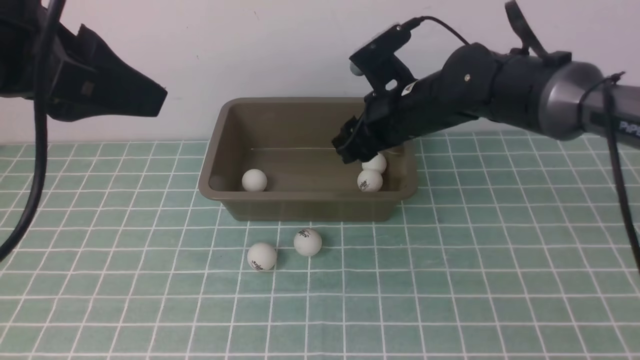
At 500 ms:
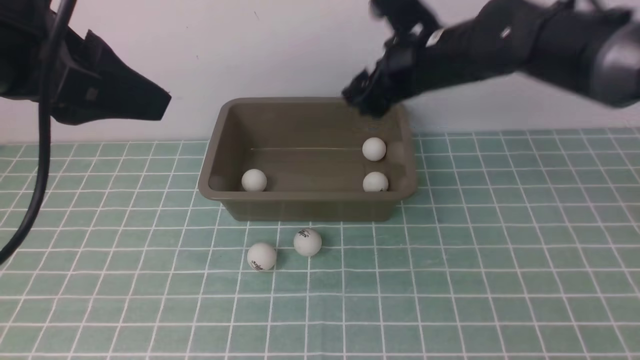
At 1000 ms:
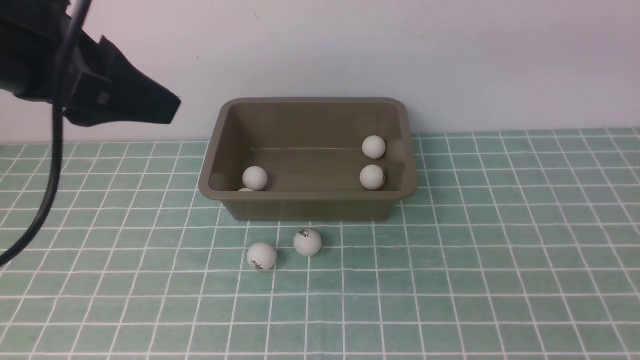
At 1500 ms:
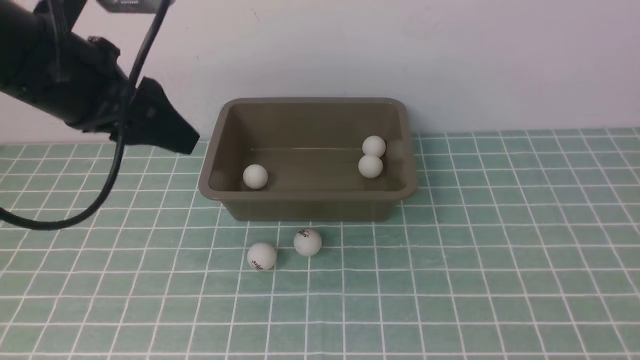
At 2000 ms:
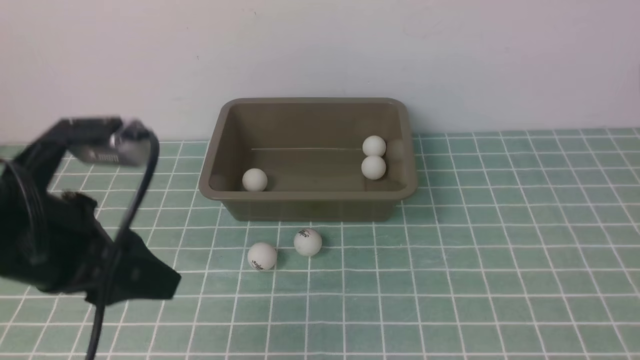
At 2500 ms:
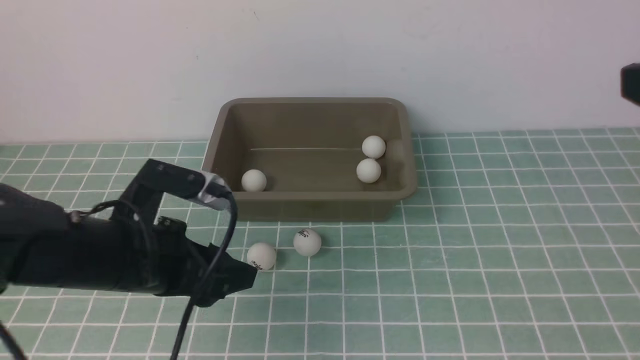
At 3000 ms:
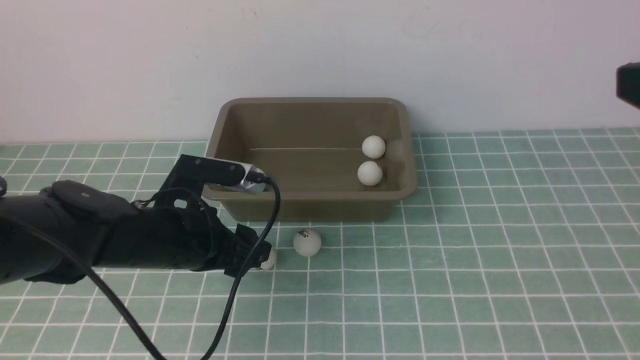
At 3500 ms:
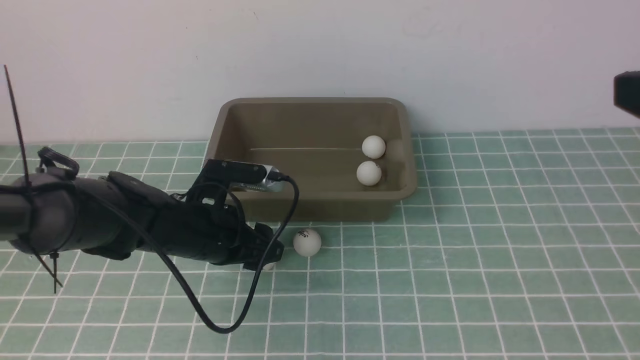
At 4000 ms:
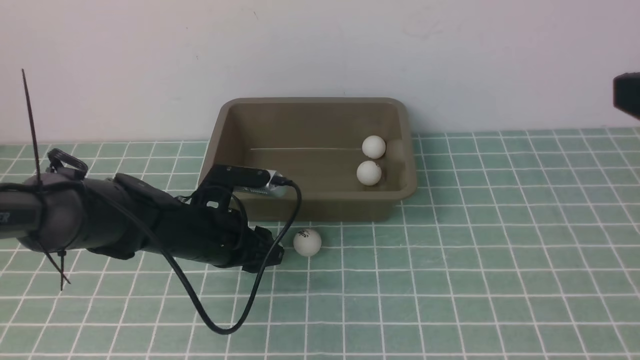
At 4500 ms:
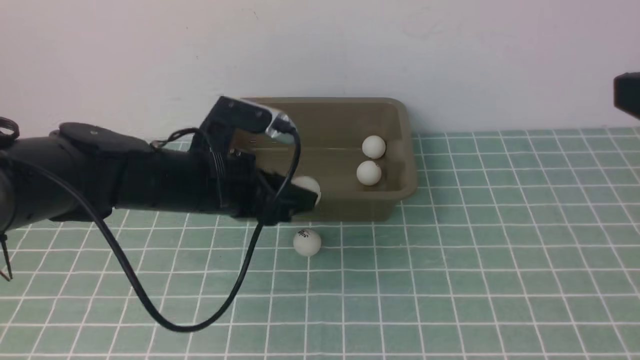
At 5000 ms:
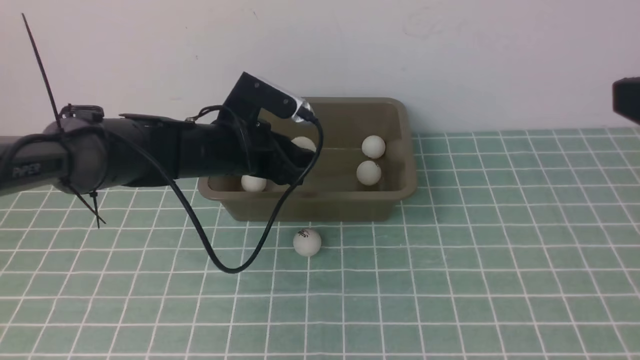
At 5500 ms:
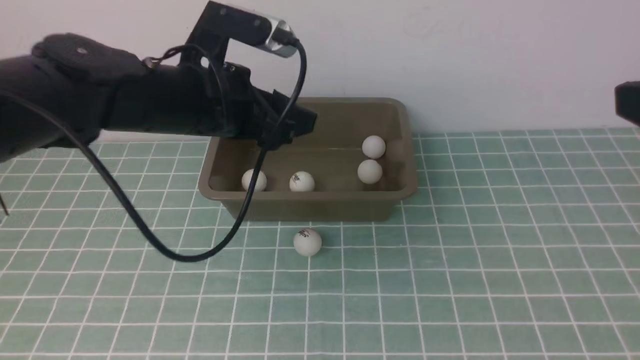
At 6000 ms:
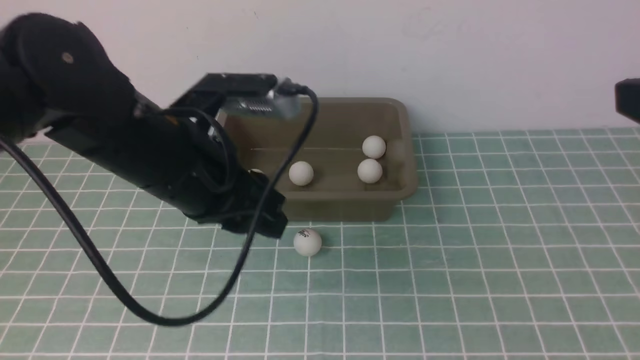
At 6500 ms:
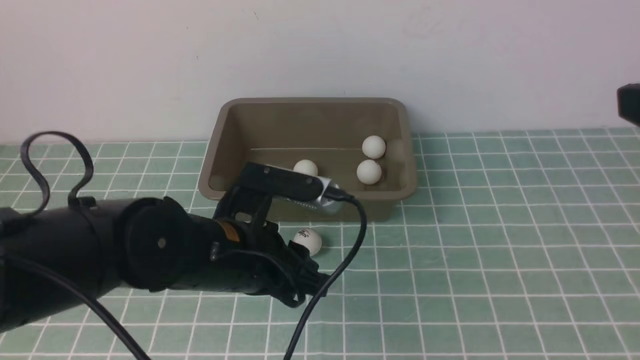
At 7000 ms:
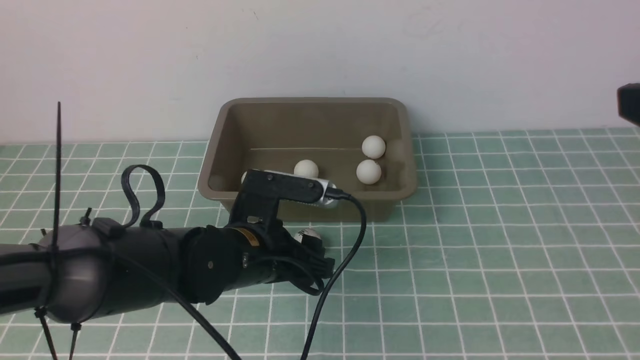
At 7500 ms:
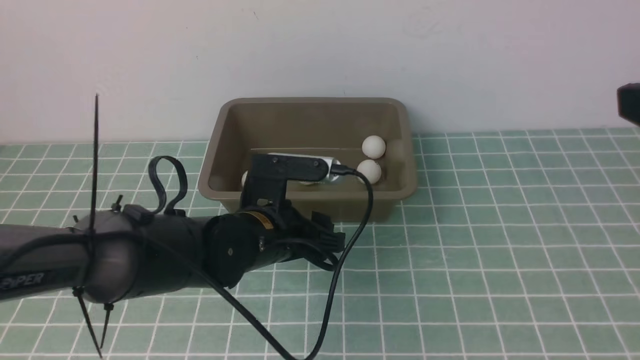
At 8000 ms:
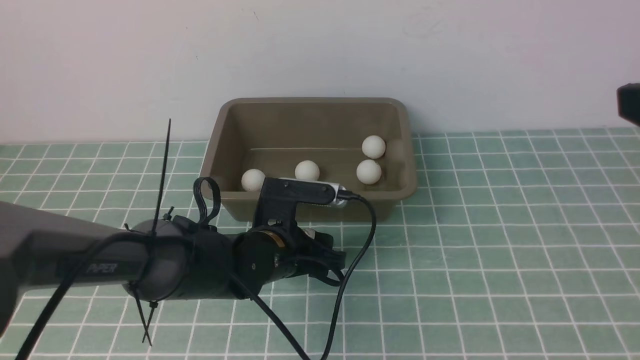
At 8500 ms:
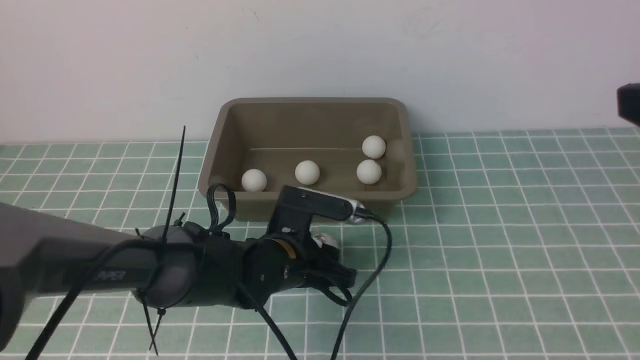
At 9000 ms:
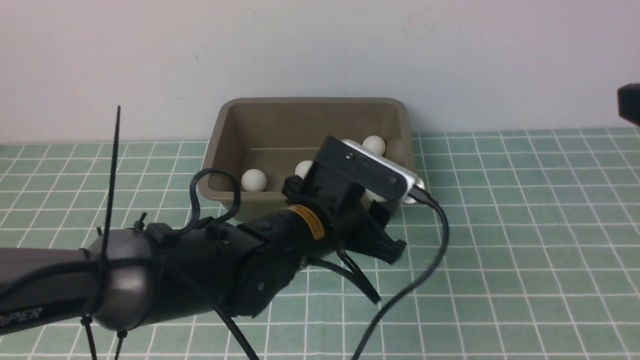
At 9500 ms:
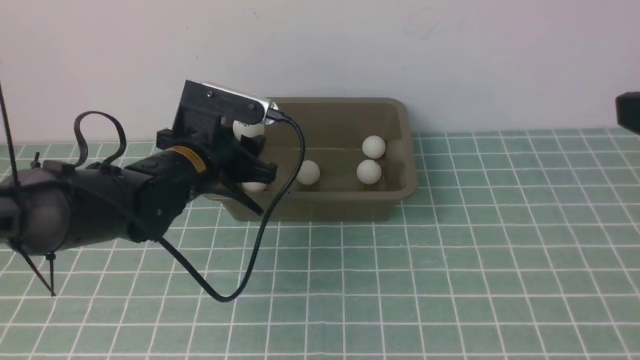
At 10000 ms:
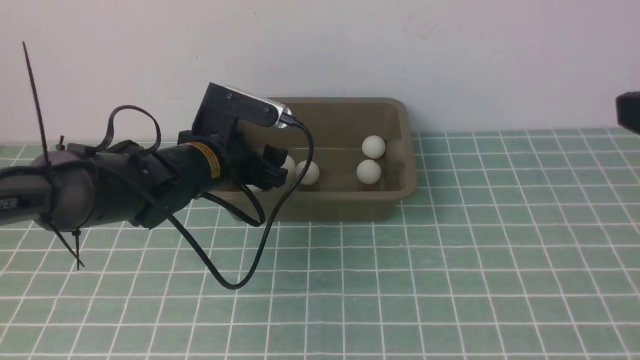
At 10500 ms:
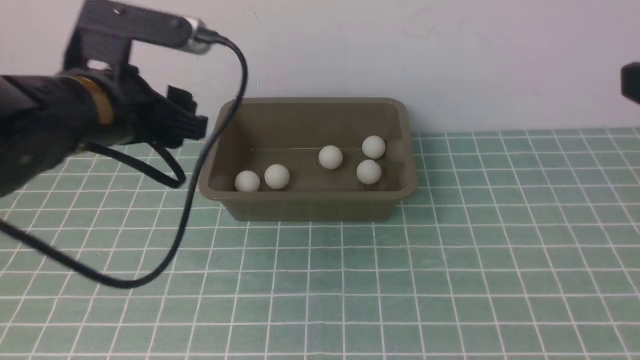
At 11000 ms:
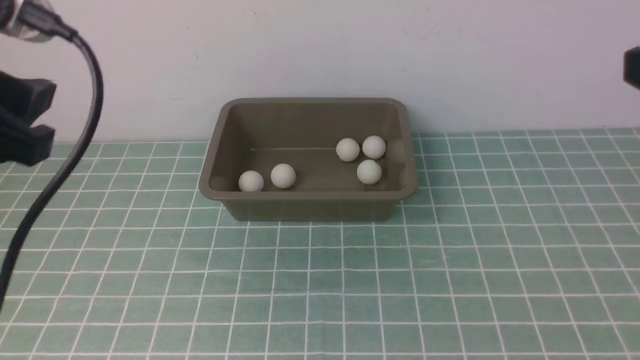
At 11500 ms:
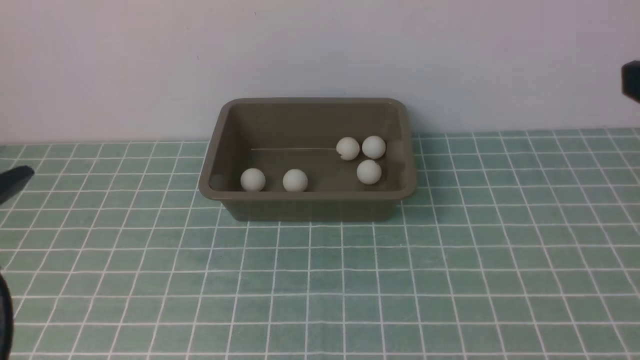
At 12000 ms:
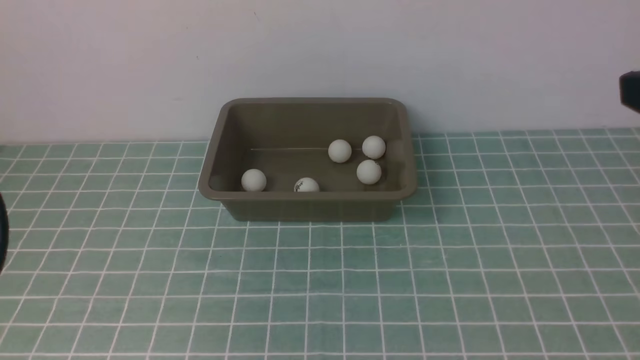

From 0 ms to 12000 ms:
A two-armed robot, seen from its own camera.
Step, from 500 ms to 4000 ms: use the left arm to clamp the table tennis ball closest to it.
Step, from 4500 ms to 5000 ms: use the left arm to put the table tennis ball into the box.
Step, from 5500 ms to 8500 ms: use the left arm to clamp the table tennis ball closest to it.
Step, from 9000 ms to 10000 ms: use the left arm to put the table tennis ball into the box.
From 0 ms to 2000 ms: The left gripper heads downward, covering approximately 15 cm. The right gripper goes some 35 cm backward, upward and to the right, and opens up.
From 2000 ms to 4000 ms: The left gripper travels downward, forward and to the right by about 20 cm.
From 4000 ms to 6000 ms: The left gripper travels upward and backward by roughly 15 cm.
From 6000 ms to 8000 ms: The left gripper moves downward and forward, approximately 15 cm, and opens its fingers.
From 8000 ms to 10000 ms: The left gripper travels upward, to the left and forward by some 15 cm, and closes and opens again.
From 10000 ms to 12000 ms: The left gripper travels backward, upward and to the left by some 30 cm.

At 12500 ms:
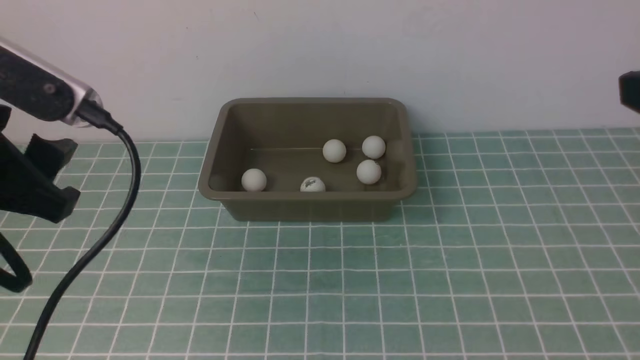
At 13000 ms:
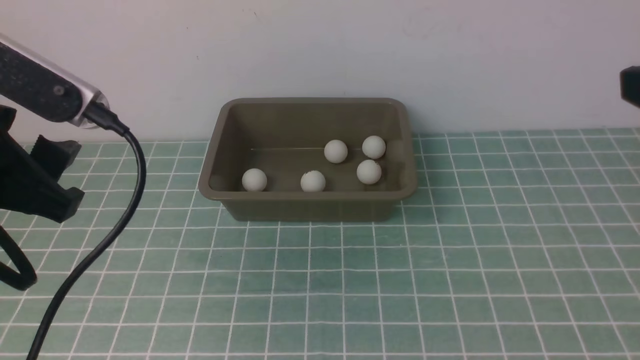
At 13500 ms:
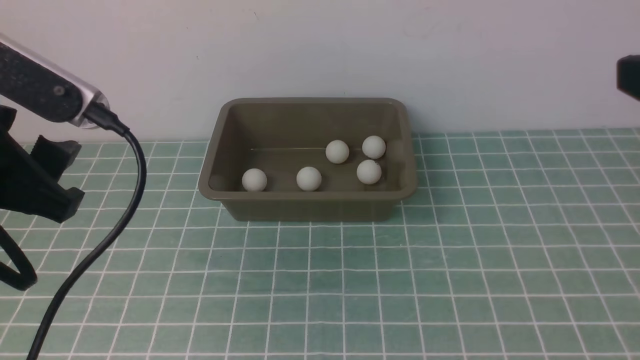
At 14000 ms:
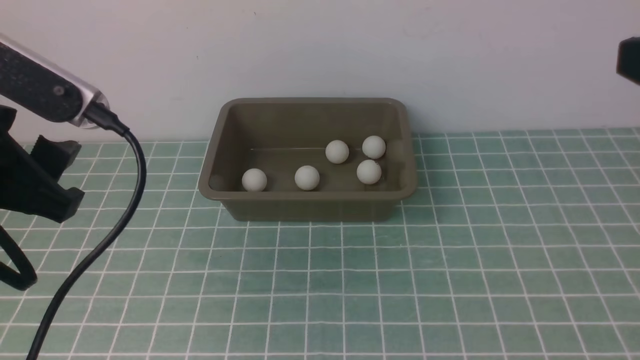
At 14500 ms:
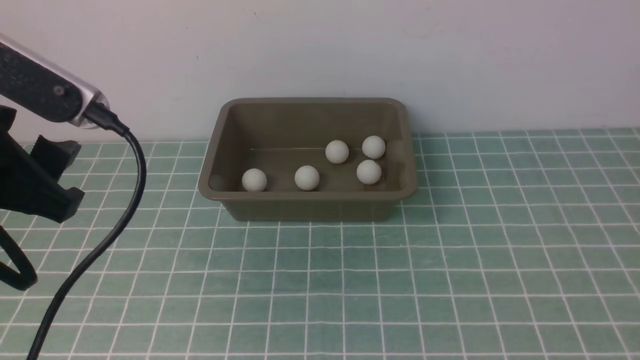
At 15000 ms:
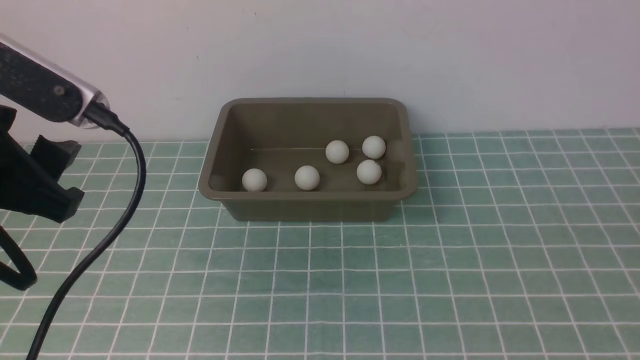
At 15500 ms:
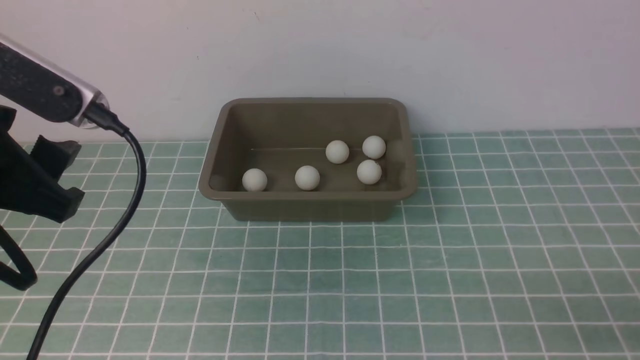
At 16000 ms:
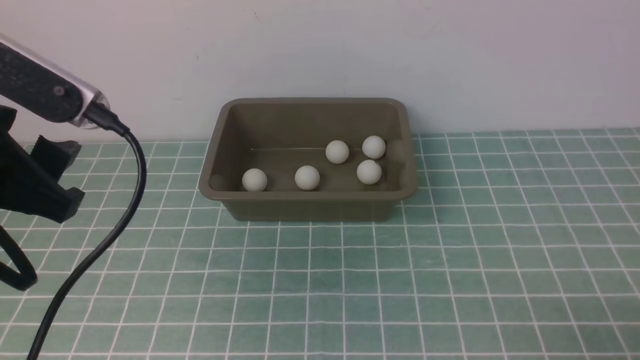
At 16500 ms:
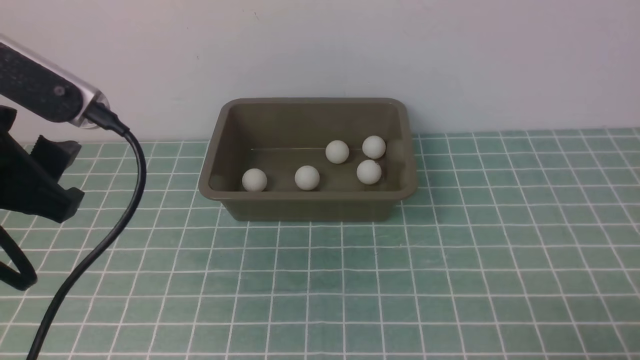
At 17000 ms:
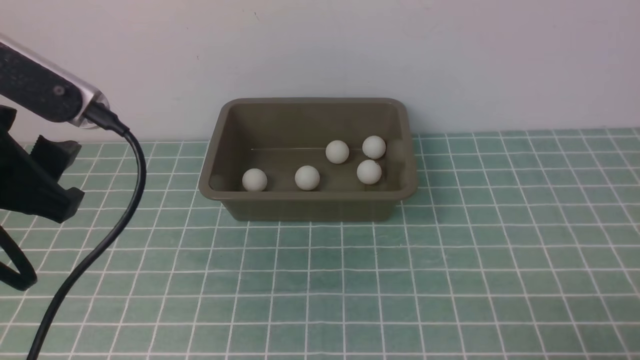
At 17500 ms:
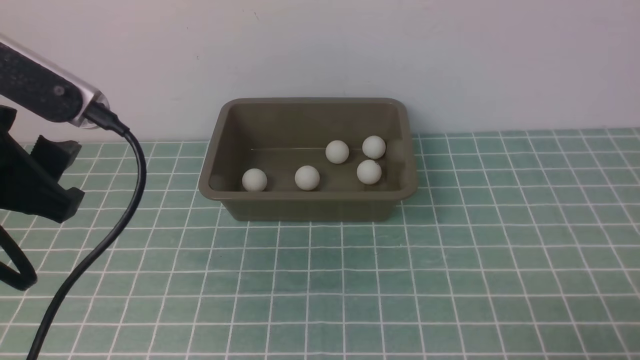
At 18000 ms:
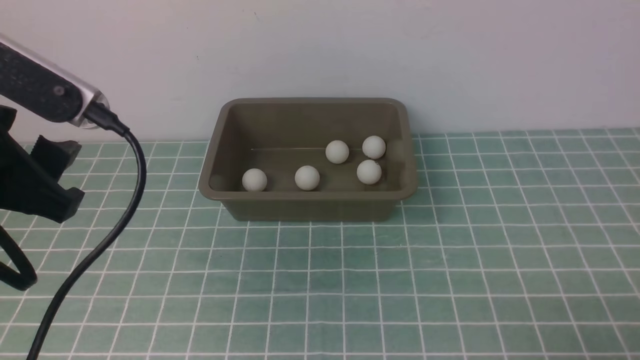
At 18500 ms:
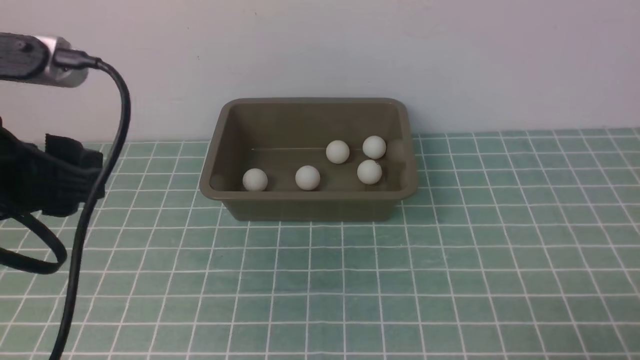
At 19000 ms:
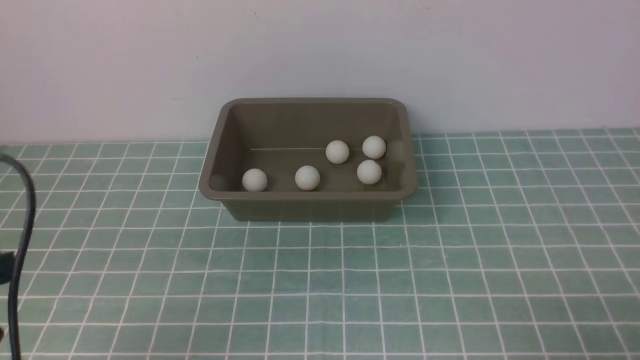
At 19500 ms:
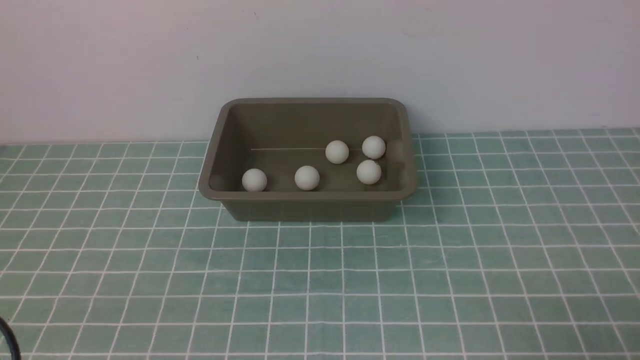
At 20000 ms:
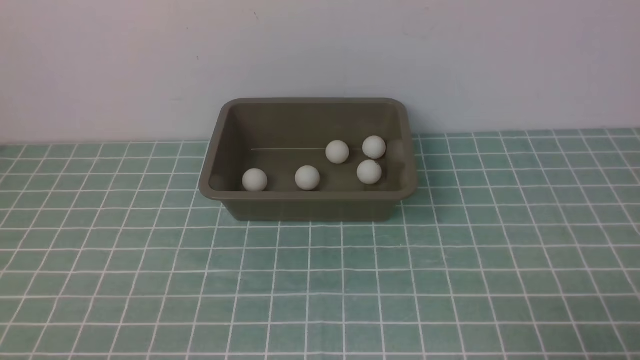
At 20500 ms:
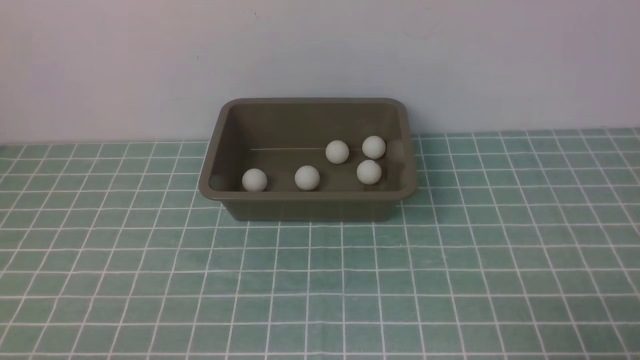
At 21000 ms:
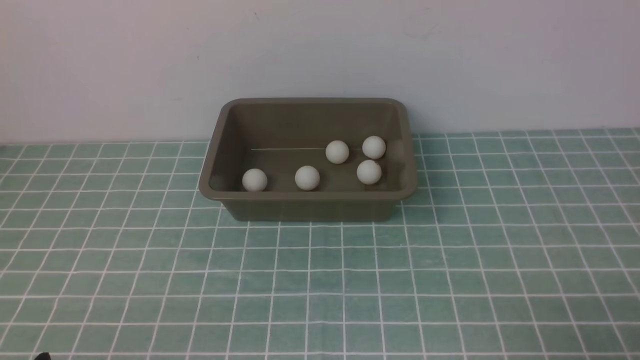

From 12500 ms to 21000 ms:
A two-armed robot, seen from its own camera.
From 12500 ms to 14500 ms: The right gripper closes up.
From 16500 ms to 19000 ms: The left gripper shifts about 15 cm downward, backward and to the left.
From 19000 ms to 21000 ms: The left gripper shifts some 5 cm downward.
